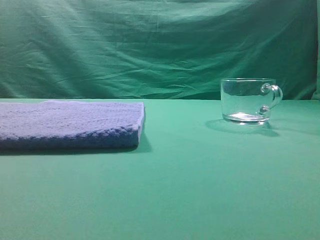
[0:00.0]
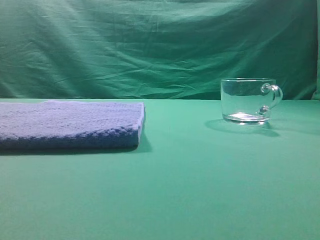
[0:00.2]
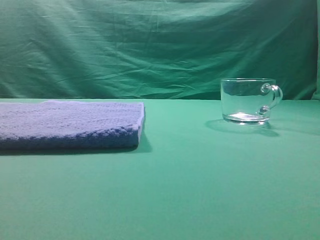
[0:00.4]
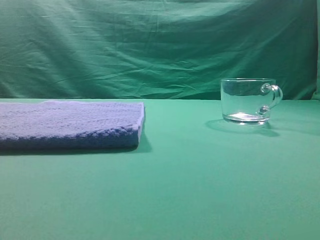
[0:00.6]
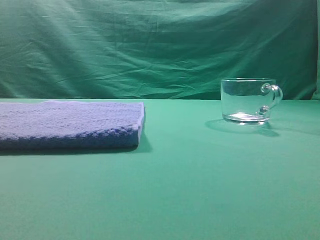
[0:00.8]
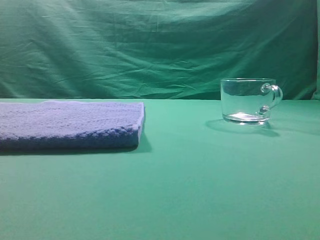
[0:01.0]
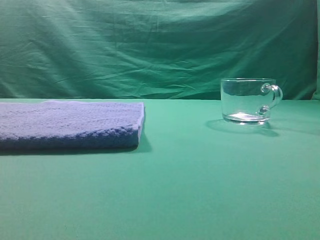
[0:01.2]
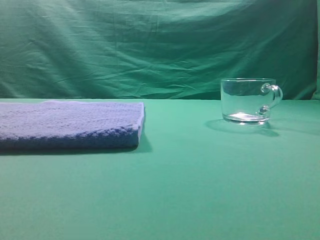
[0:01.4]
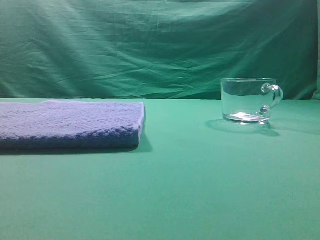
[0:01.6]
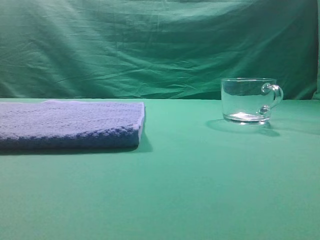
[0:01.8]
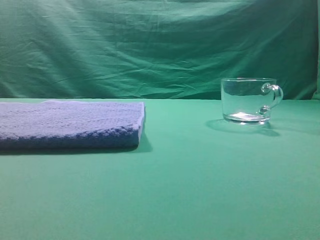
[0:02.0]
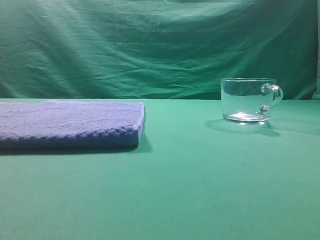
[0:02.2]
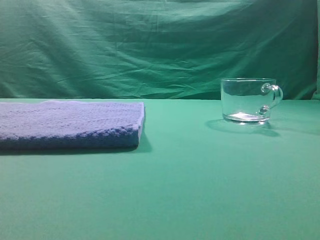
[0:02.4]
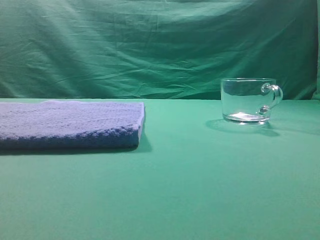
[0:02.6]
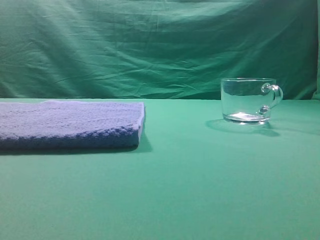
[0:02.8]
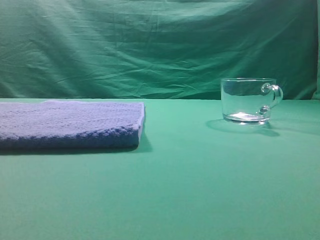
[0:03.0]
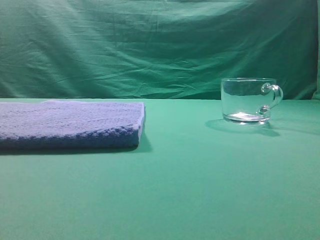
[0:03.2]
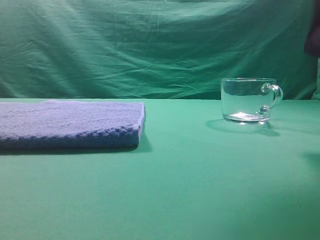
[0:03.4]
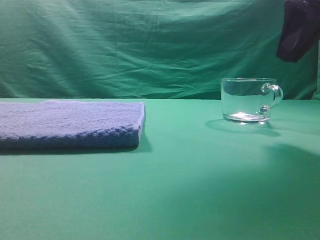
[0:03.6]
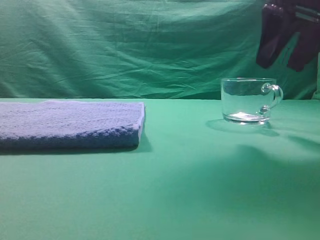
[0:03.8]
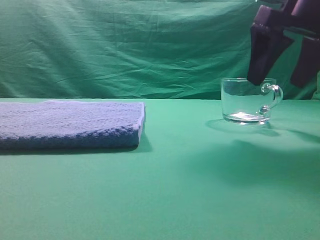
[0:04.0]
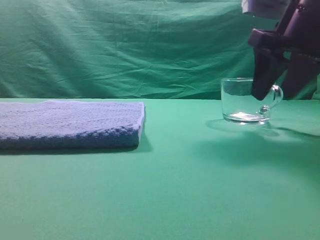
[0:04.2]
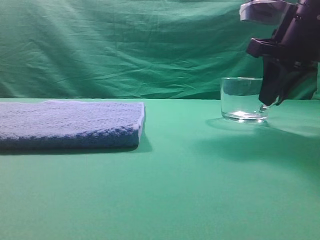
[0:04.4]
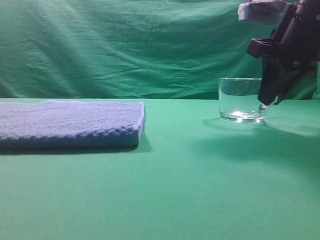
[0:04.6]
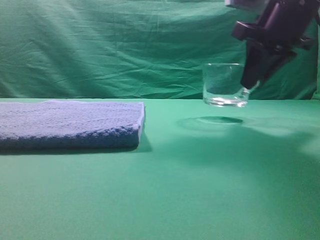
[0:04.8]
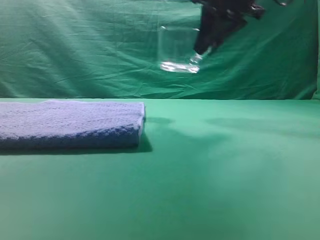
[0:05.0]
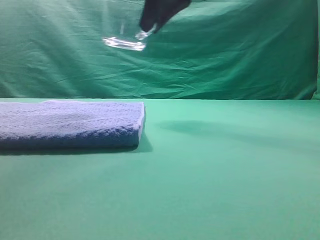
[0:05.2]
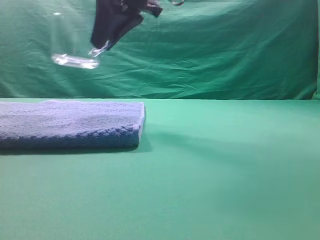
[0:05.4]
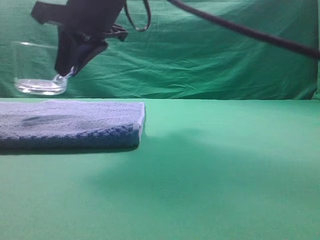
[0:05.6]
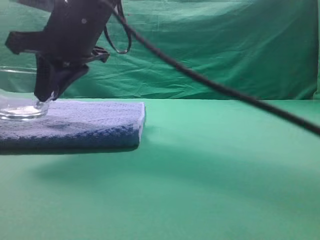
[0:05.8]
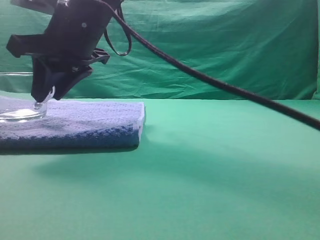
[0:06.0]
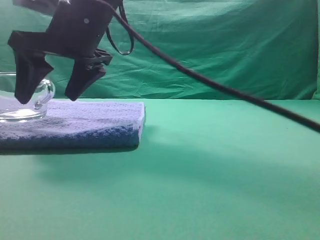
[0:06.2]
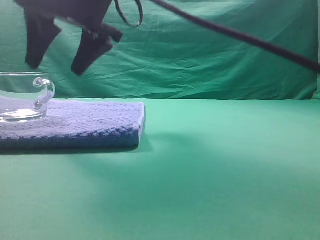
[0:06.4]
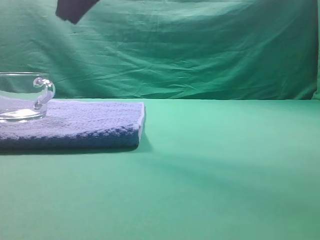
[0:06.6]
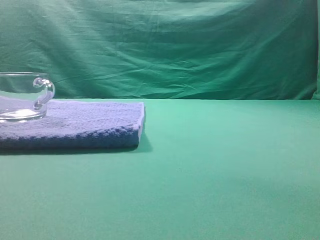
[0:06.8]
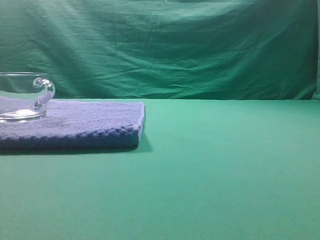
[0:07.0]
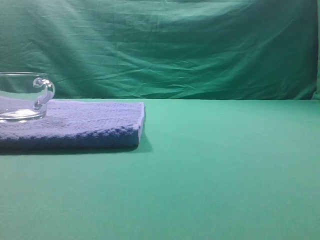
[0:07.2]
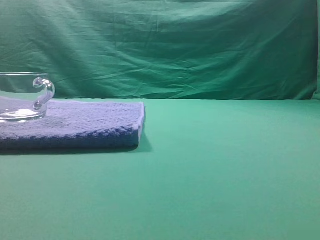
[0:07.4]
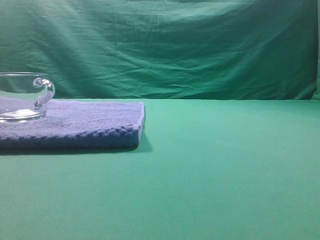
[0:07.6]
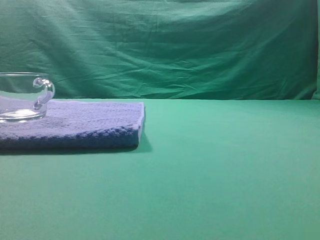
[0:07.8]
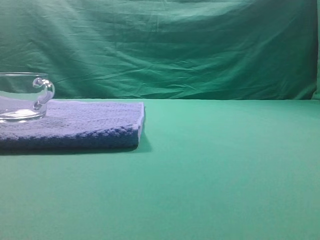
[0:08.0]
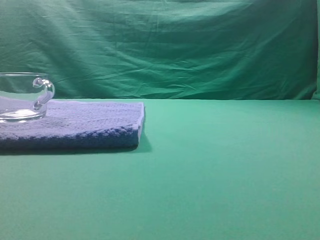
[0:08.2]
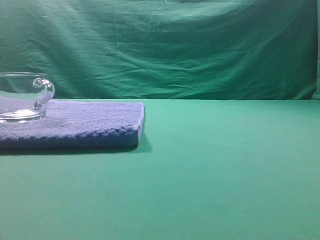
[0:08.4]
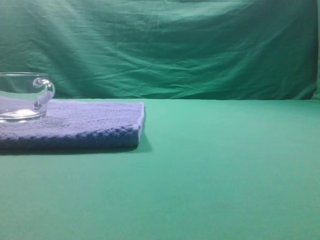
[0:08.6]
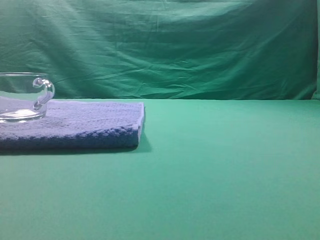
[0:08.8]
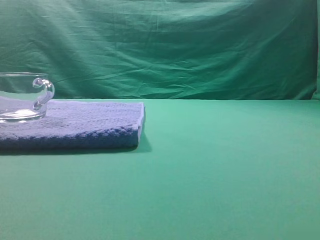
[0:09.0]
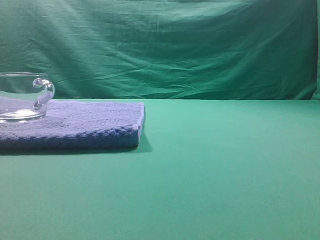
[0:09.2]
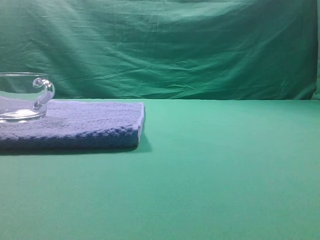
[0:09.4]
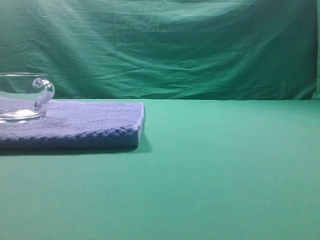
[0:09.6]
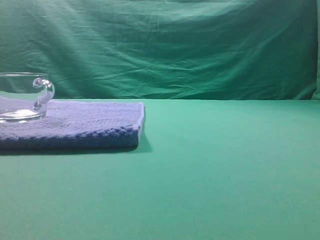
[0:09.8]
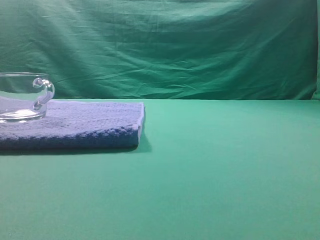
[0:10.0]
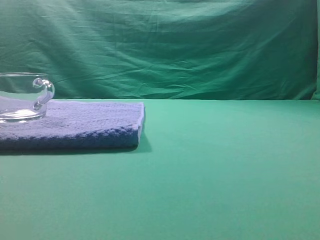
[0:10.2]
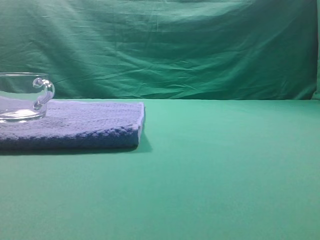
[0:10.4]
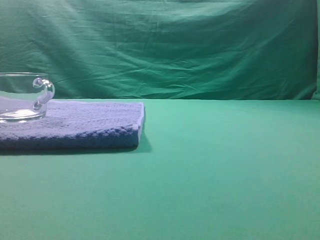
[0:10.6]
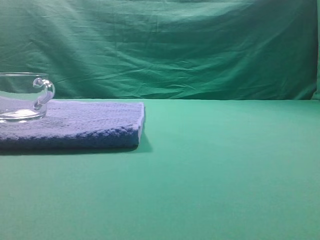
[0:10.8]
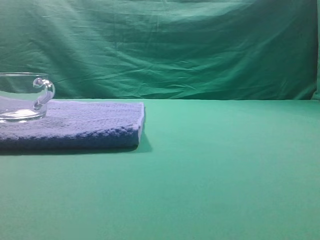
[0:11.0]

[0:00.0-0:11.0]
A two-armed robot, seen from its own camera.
Task of the whole recording: grasp the transparent glass cup and place it within the blue towel.
Step, 0:00.0 to 0:04.6: Grasp the transparent glass cup.
Step, 0:05.0 to 0:06.4: Place the glass cup on the blue zone.
